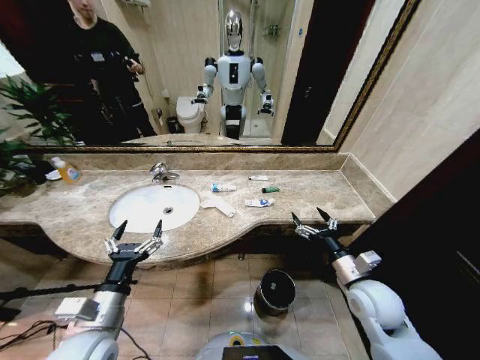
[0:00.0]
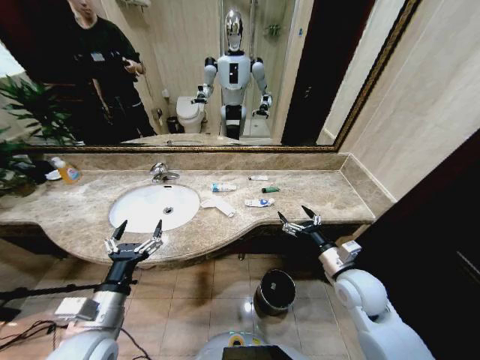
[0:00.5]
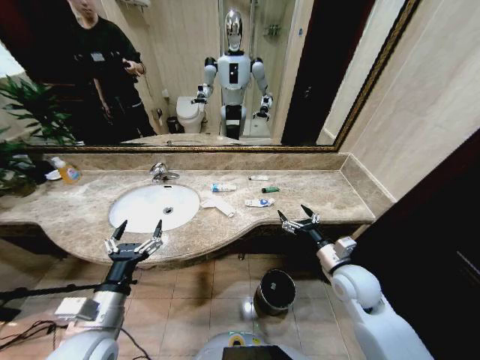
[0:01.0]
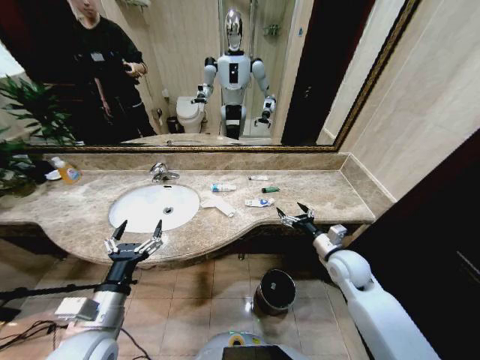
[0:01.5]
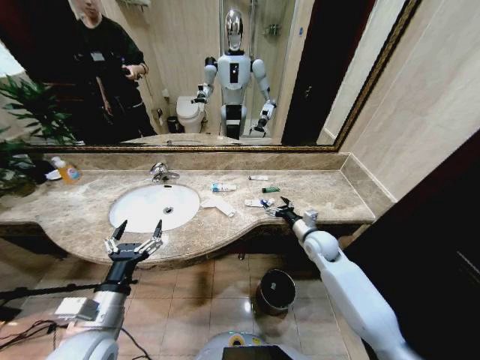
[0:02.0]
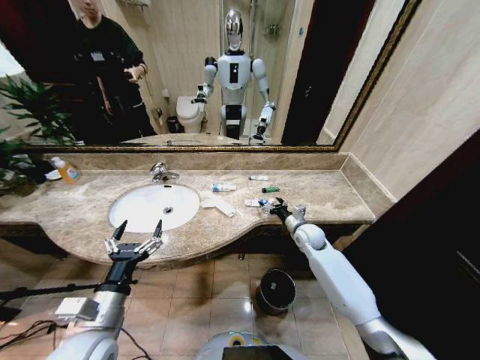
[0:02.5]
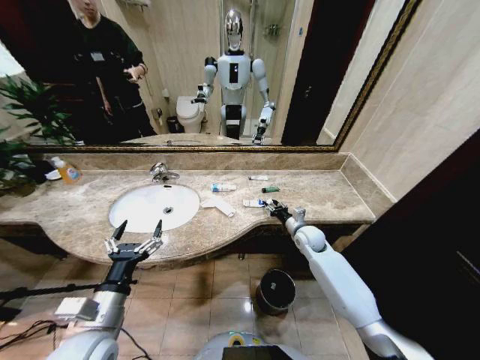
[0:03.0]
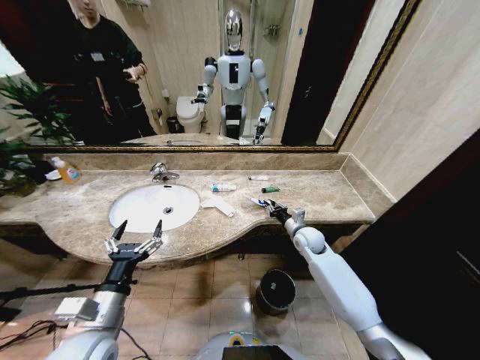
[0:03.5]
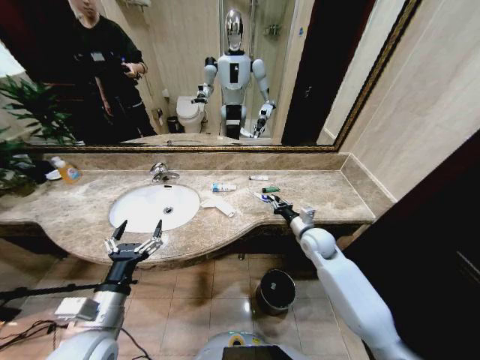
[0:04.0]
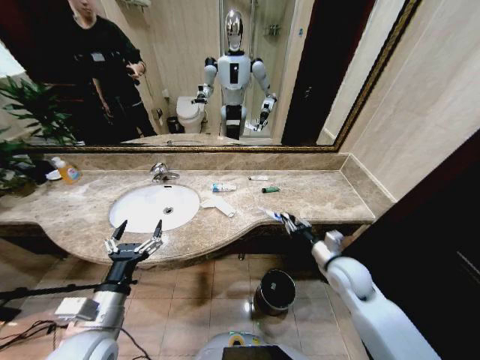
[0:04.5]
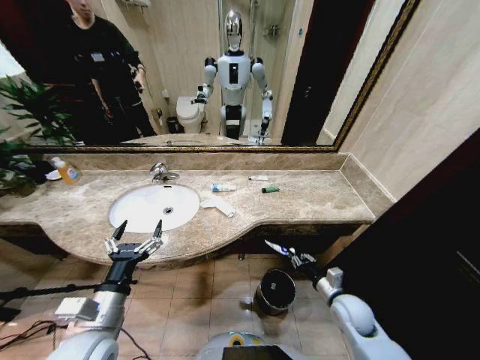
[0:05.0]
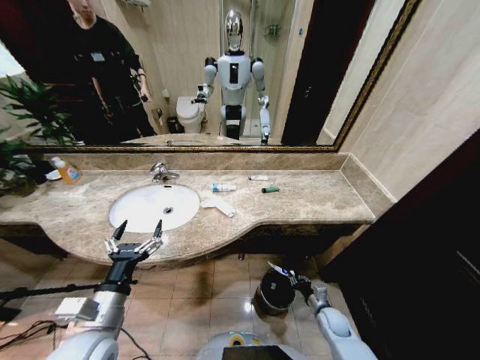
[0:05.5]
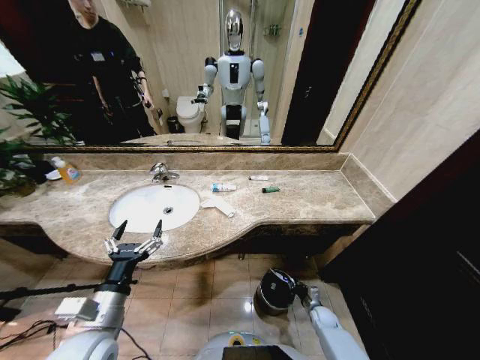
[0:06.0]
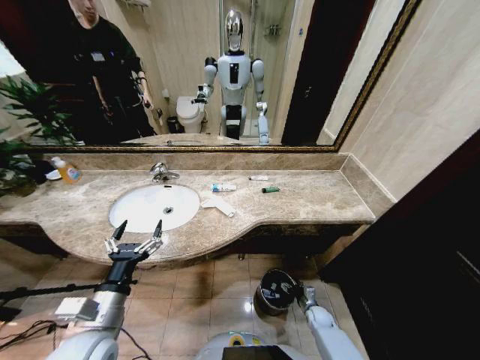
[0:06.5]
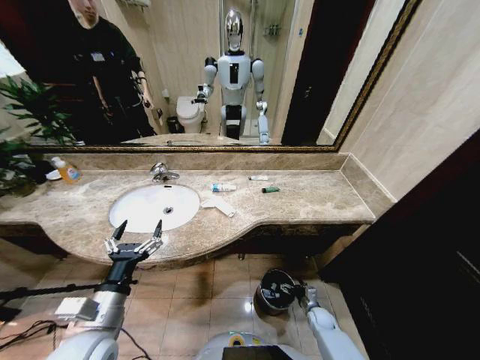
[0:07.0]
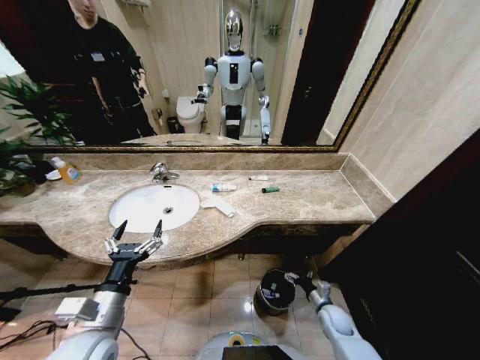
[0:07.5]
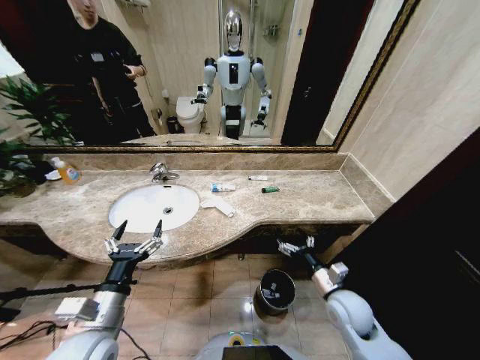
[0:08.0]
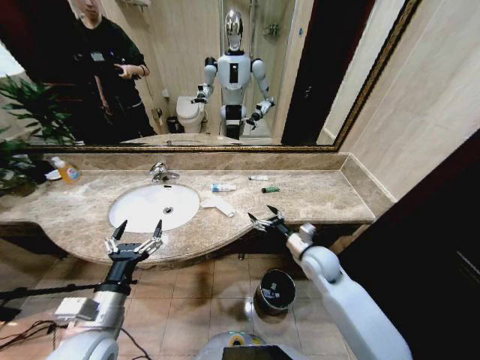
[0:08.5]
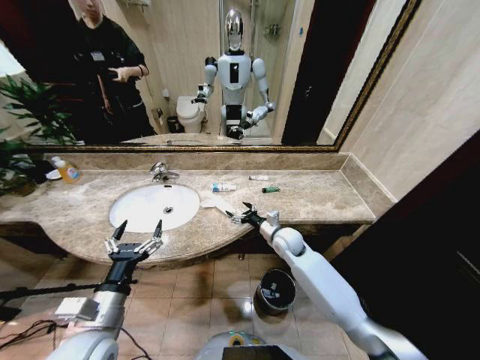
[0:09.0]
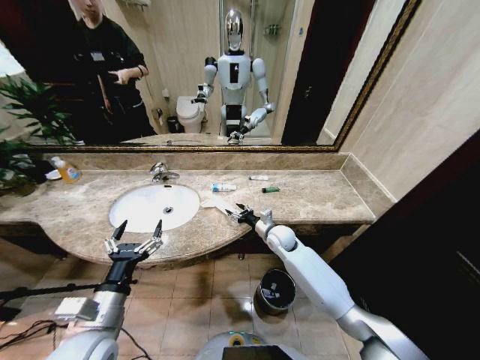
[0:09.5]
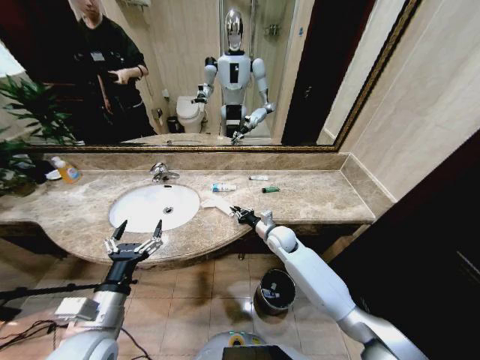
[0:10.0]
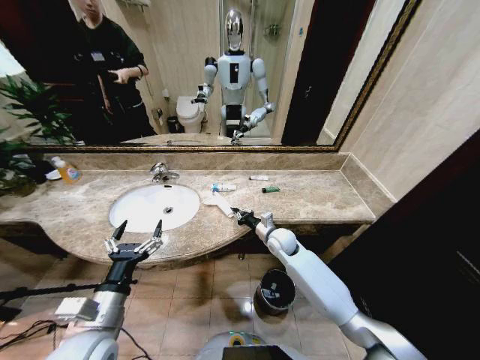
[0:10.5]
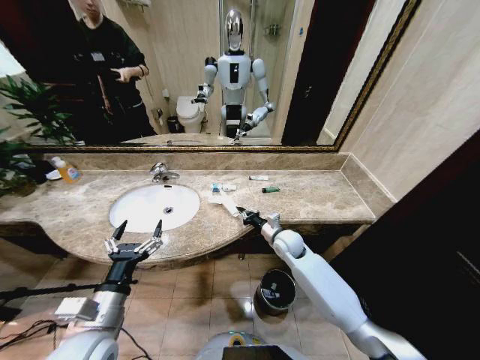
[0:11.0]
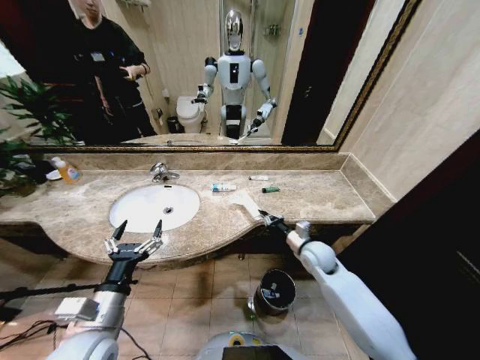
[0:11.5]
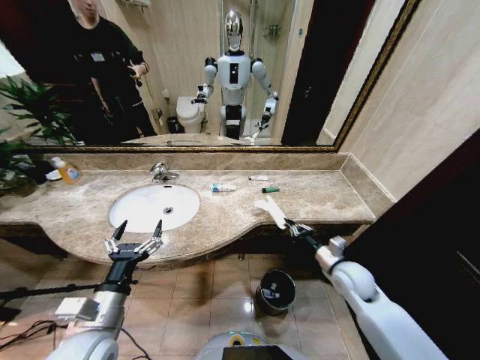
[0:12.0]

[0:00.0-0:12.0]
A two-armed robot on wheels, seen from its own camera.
Task of the whole recording: Pick up the trash from the sink and place it in the trash bin.
0:02.0 to 0:04.0: The right gripper closes up.
0:04.0 to 0:06.0: The right gripper travels downward and backward by some 35 cm.
0:06.0 to 0:08.0: The right gripper travels upward by about 30 cm, and opens its fingers.
0:08.0 to 0:10.0: The right gripper travels forward and to the left by about 25 cm, and closes up.
0:10.0 to 0:12.0: The right gripper heads to the right and backward, covering approximately 20 cm.

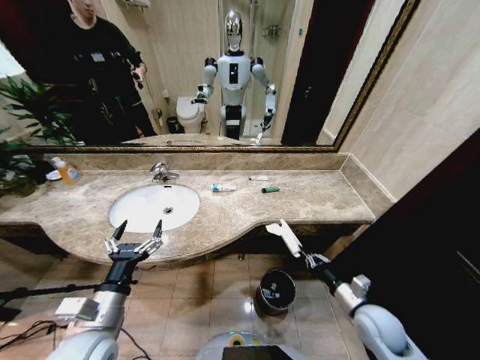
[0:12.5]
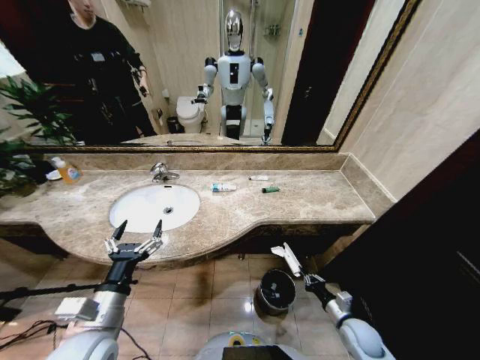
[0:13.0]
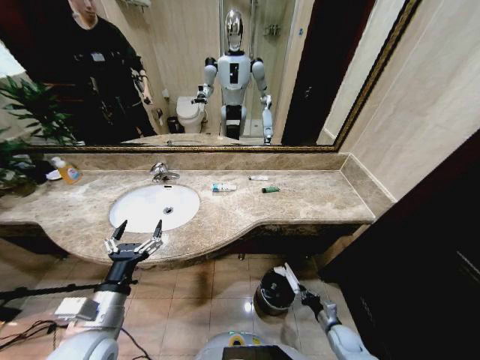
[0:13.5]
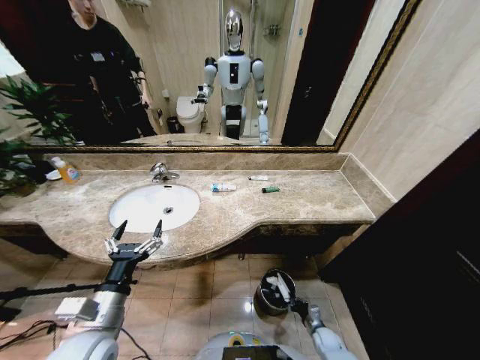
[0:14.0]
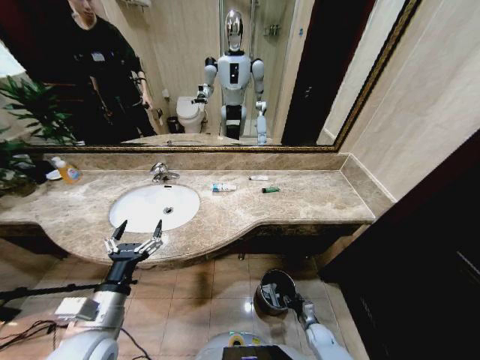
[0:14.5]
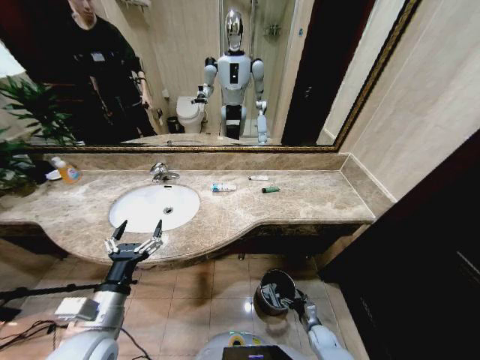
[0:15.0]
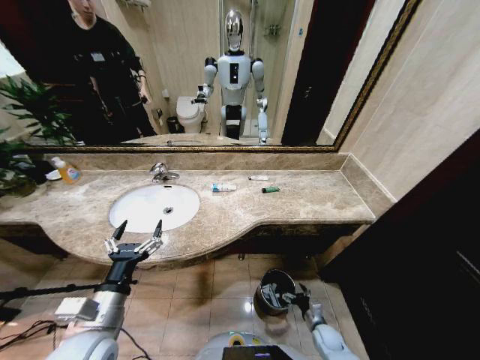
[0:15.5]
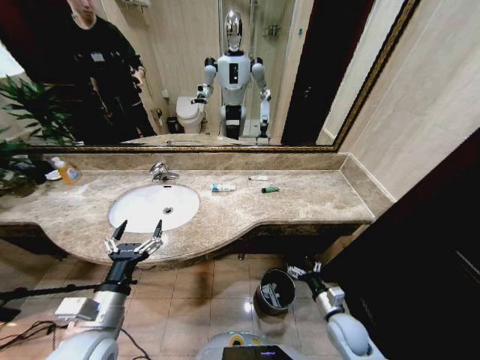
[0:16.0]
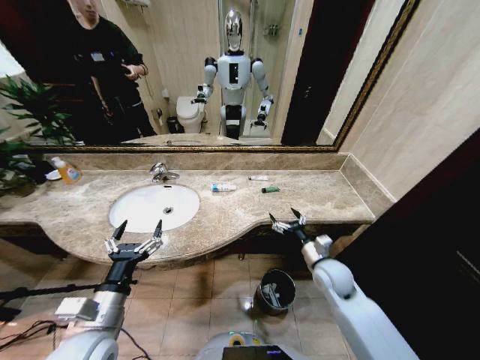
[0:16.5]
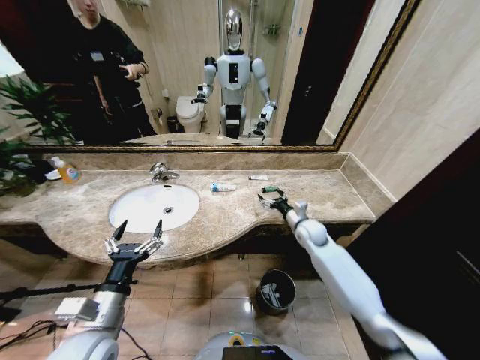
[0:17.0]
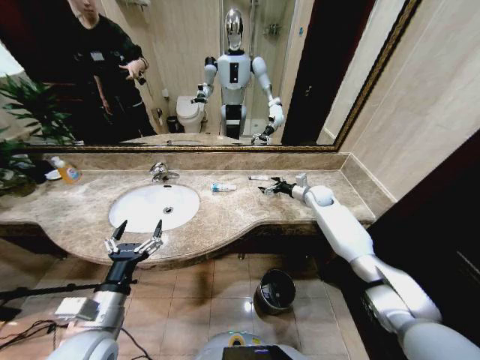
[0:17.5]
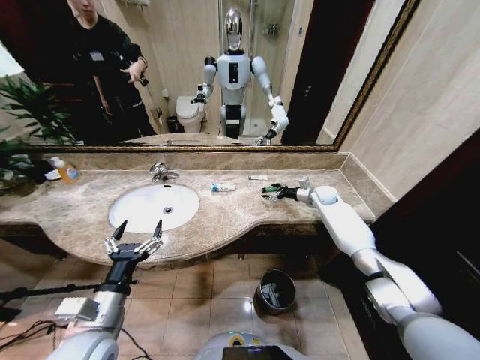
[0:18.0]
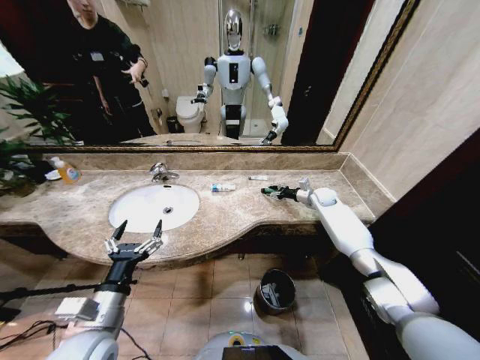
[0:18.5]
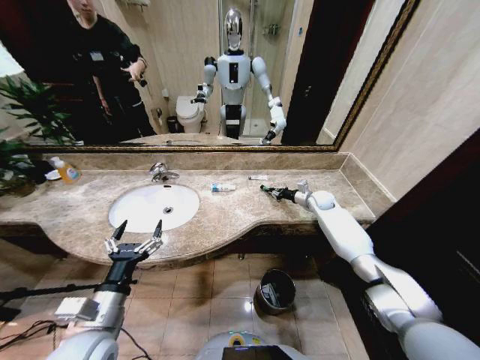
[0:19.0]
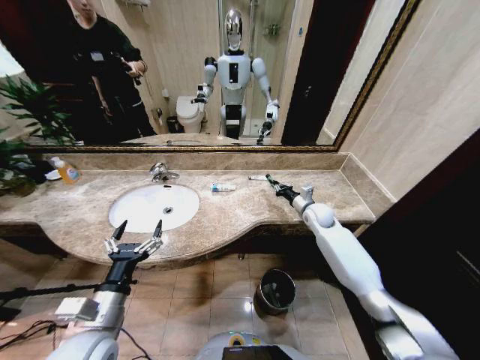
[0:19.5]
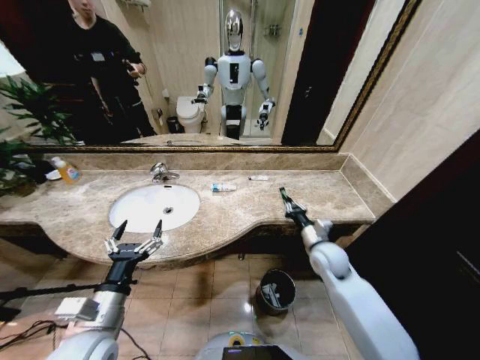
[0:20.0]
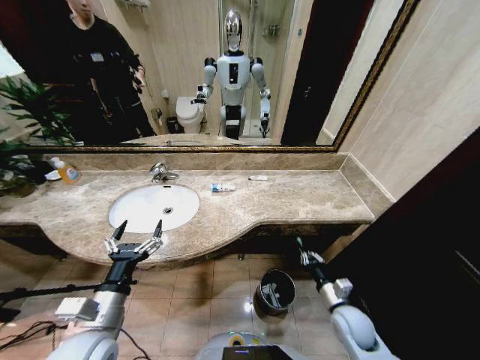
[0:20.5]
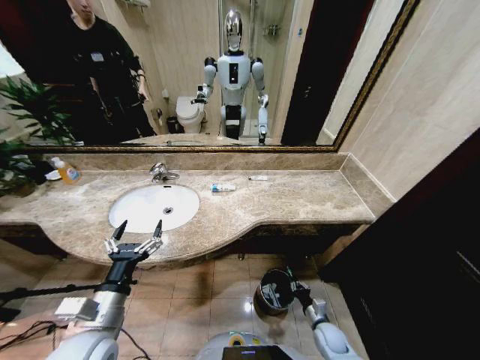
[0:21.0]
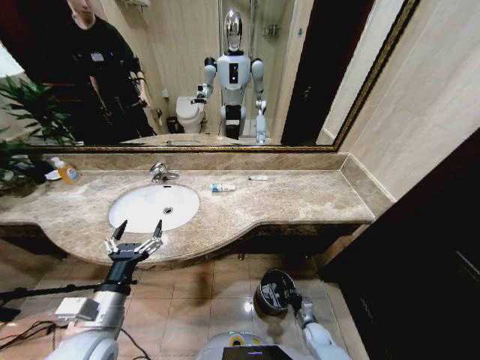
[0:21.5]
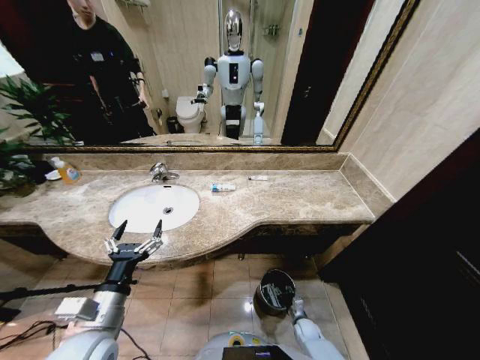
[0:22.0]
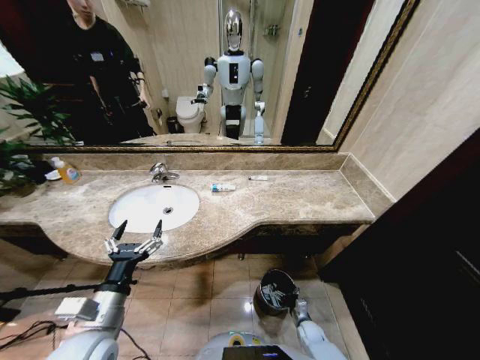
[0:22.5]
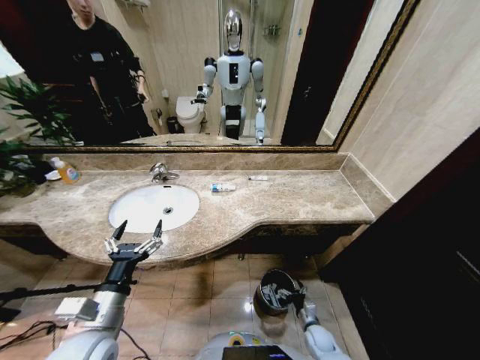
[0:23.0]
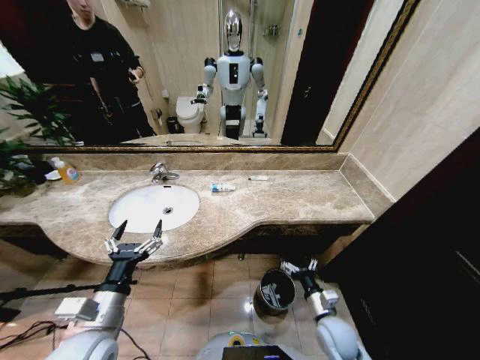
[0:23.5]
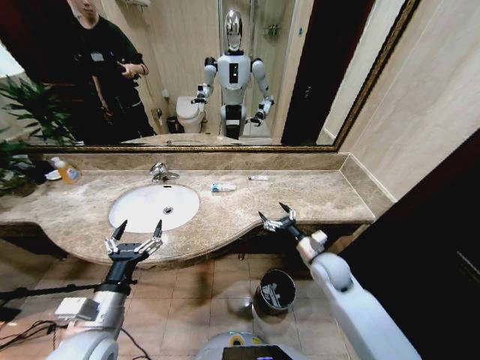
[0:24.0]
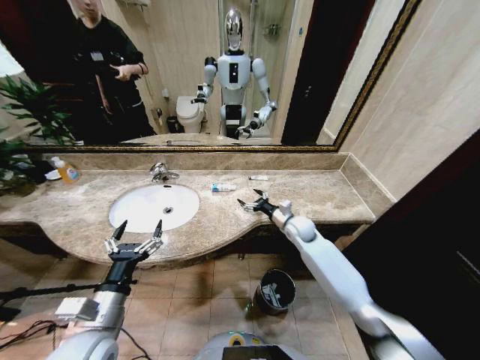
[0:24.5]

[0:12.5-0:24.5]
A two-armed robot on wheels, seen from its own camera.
Task of the whole recording: Pick up the trash from the sink and place it in the trash bin.
0:12.5 to 0:14.5: The right gripper travels downward by roughly 30 cm, and opens its fingers.
0:14.5 to 0:16.5: The right gripper goes approximately 35 cm upward, and opens its fingers.
0:16.5 to 0:18.5: The right gripper heads forward, covering roughly 30 cm, and closes up.
0:18.5 to 0:20.5: The right gripper goes some 40 cm backward, and closes its fingers.
0:20.5 to 0:22.5: The right gripper is displaced downward by some 25 cm, and opens.
0:22.5 to 0:24.5: The right gripper is displaced upward and forward by roughly 40 cm.

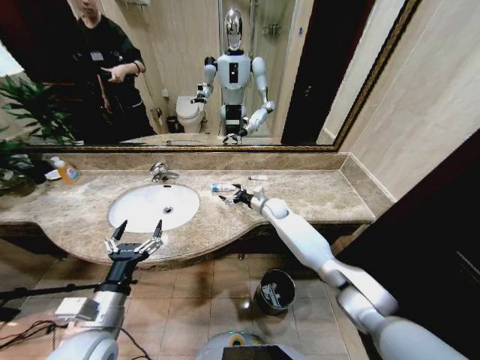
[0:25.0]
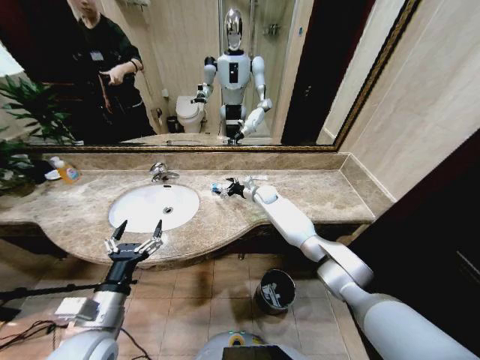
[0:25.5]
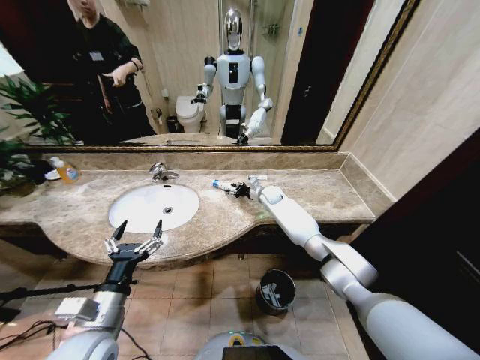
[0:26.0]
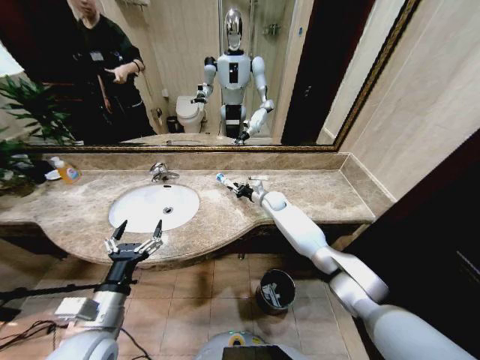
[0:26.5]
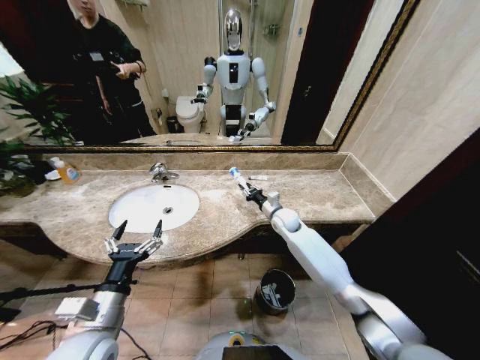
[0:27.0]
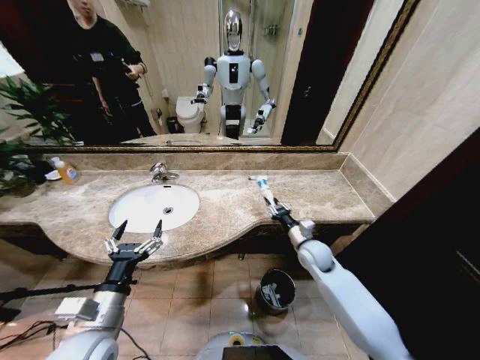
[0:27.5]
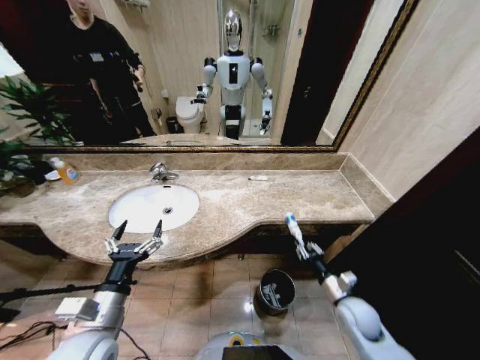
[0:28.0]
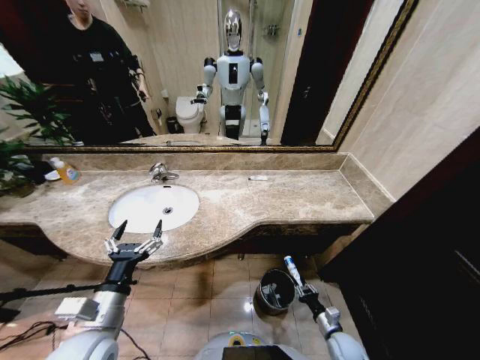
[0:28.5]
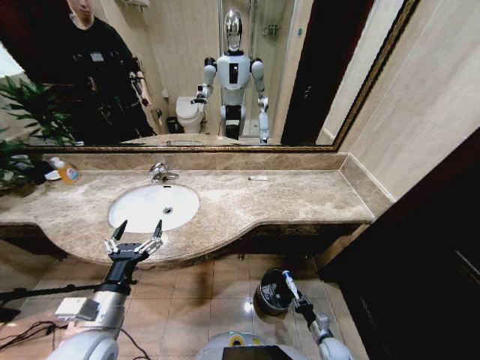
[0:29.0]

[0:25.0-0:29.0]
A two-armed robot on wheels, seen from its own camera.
Task of the whole recording: Pick up the trash from the sink and place it in the trash bin.
0:25.0 to 0:27.0: The right gripper is displaced backward by roughly 5 cm, and closes up.
0:27.0 to 0:29.0: The right gripper travels downward, backward and to the right by some 50 cm.
